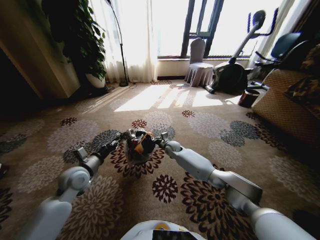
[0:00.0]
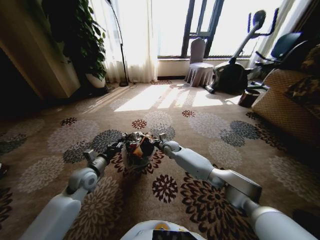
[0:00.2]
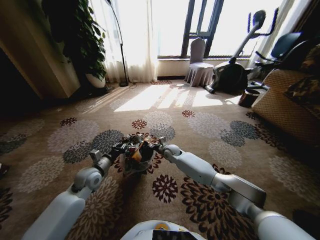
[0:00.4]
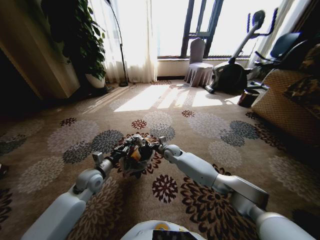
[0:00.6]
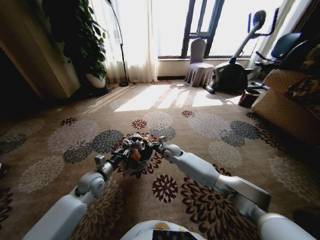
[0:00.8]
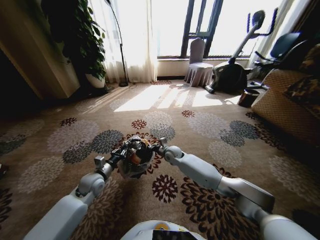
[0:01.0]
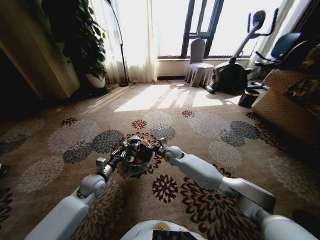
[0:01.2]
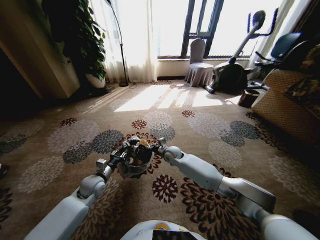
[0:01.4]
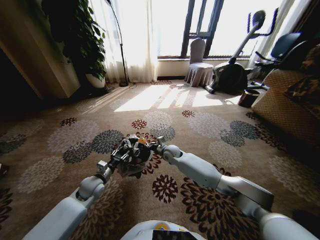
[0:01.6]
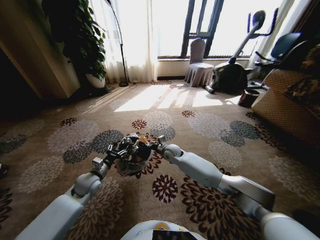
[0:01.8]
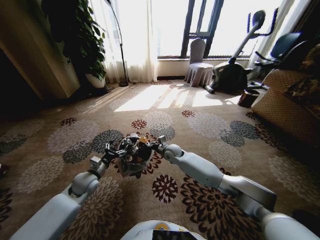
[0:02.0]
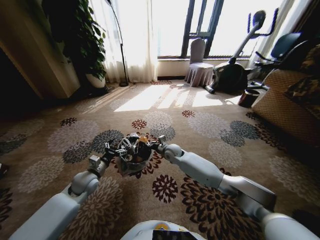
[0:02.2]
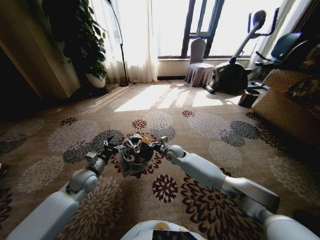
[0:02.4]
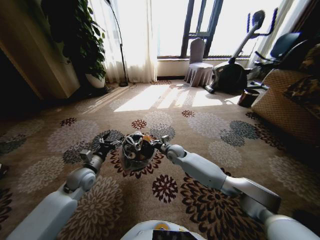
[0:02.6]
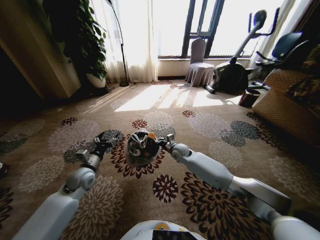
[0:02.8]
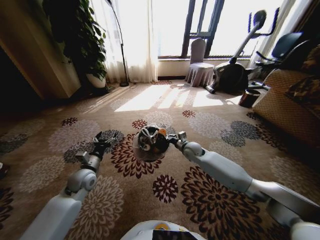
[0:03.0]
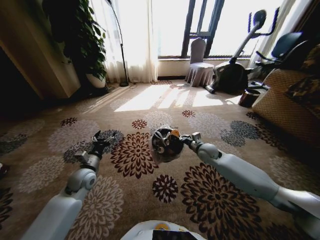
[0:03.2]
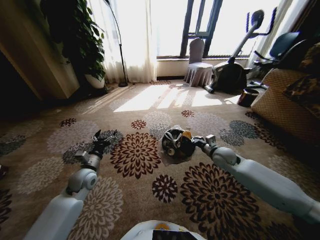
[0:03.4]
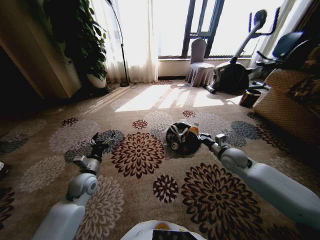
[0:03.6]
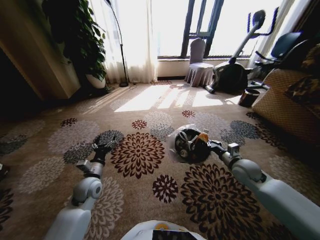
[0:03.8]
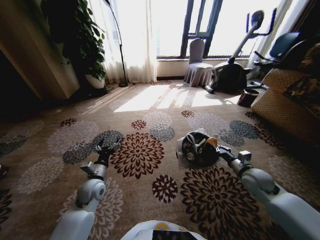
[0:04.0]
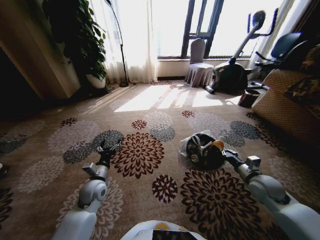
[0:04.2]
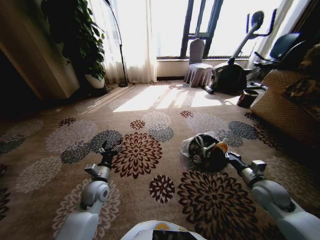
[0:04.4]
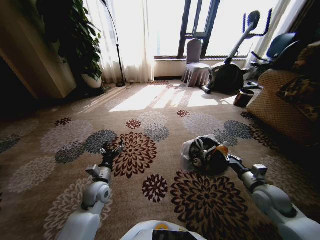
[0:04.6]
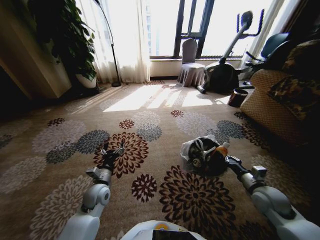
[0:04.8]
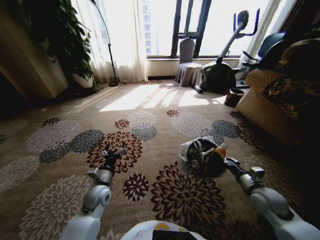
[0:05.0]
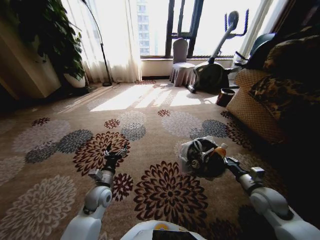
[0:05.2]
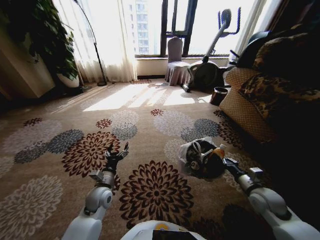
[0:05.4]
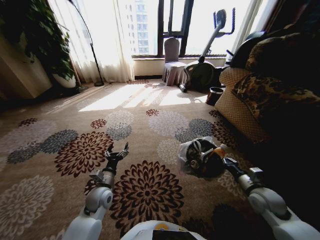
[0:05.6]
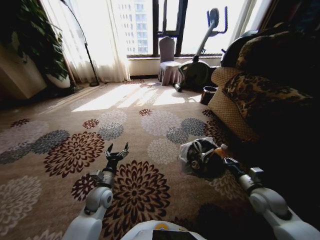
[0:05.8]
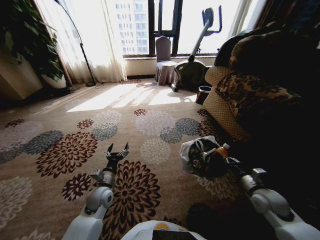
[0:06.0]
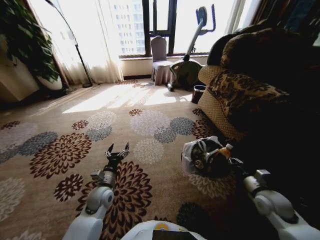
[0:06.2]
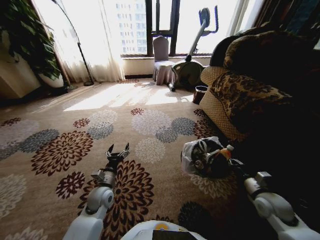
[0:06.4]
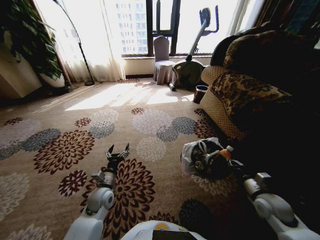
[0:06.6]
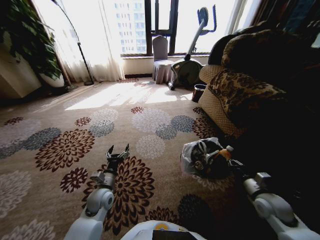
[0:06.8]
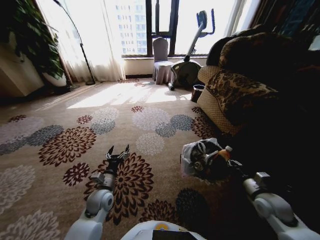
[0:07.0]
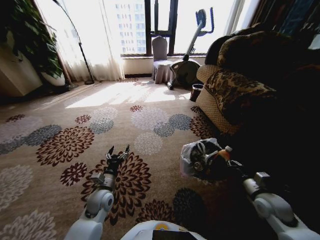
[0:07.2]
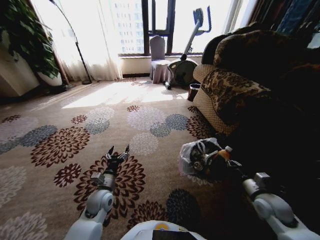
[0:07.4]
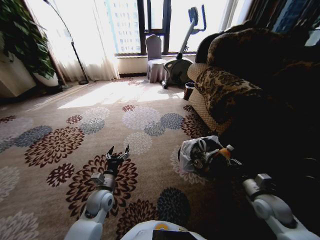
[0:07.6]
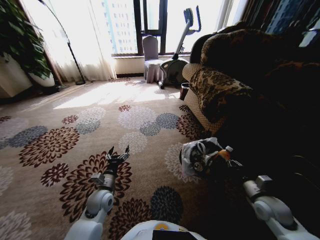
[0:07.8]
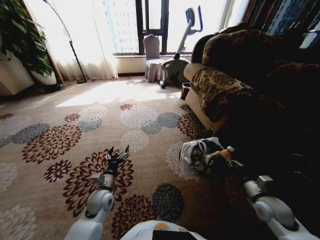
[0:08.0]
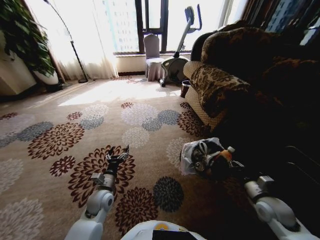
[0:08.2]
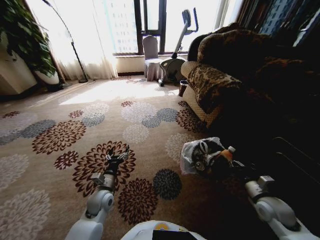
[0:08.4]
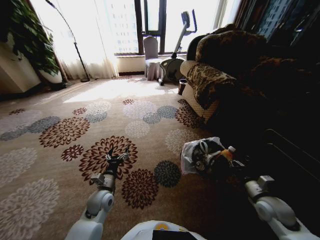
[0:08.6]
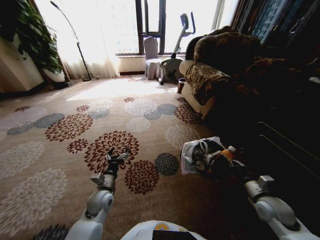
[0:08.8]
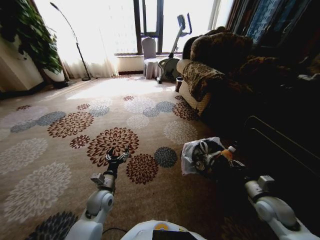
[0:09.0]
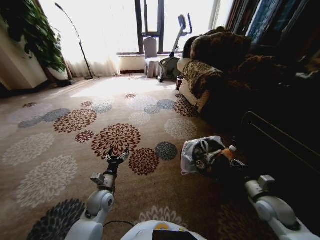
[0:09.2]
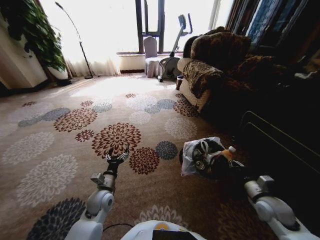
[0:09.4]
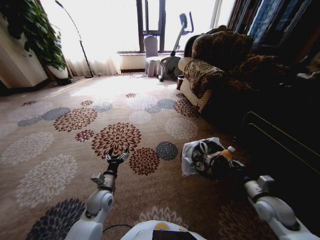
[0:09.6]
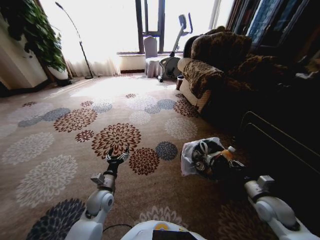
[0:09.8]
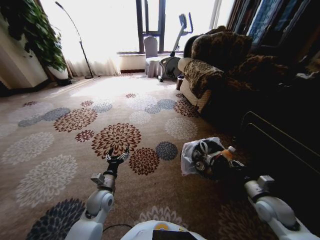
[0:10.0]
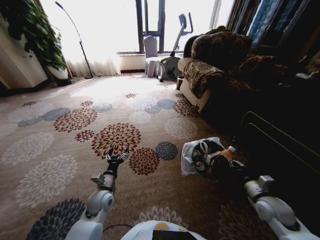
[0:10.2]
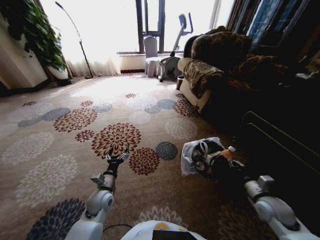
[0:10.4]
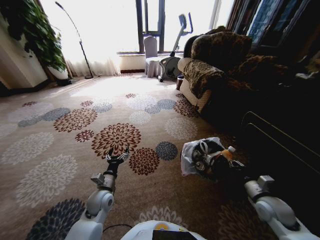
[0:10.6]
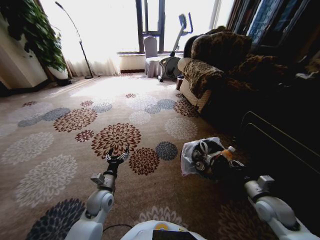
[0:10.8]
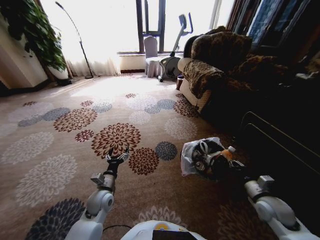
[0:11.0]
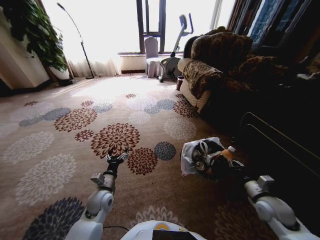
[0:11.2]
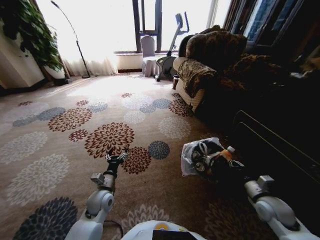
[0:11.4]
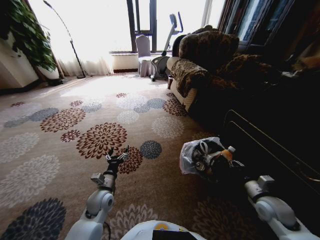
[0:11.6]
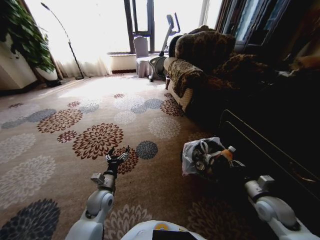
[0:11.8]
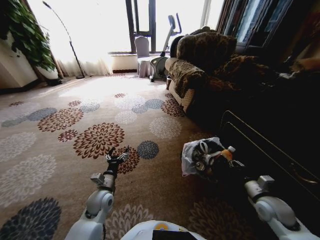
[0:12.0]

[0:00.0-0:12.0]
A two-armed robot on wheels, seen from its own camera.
Task of the whole recording: Pick up the trash from the ground and place it into the trash bin.
0:00.0 to 0:01.6: The right gripper travels backward by approximately 5 cm. Meanwhile the left gripper heads downward, covering roughly 10 cm.
0:01.6 to 0:03.0: The right gripper heads to the right, covering some 10 cm. The left gripper travels upward by roughly 5 cm, and opens.
0:03.0 to 0:04.4: The left gripper travels to the right by approximately 5 cm, while the right gripper heads to the right and backward, covering about 30 cm.
0:09.0 to 0:10.4: Neither gripper changes place.

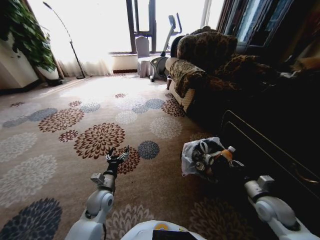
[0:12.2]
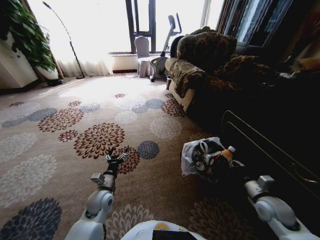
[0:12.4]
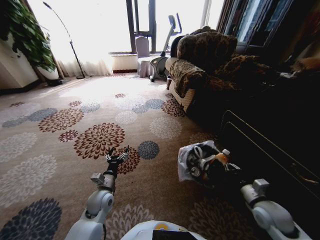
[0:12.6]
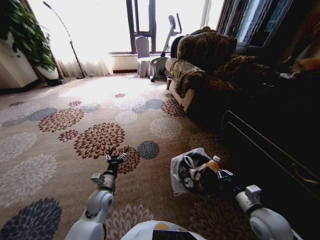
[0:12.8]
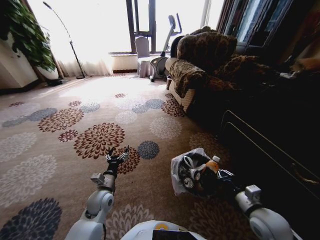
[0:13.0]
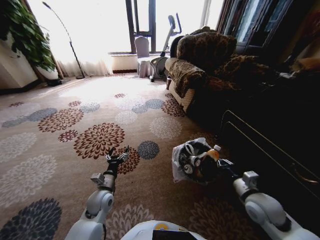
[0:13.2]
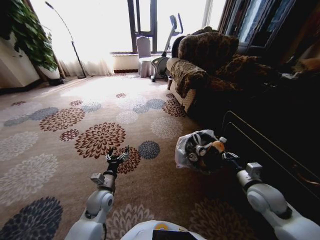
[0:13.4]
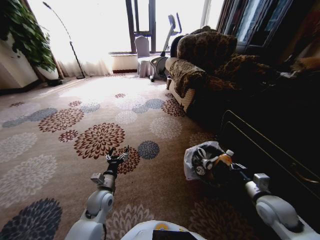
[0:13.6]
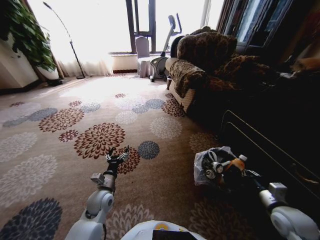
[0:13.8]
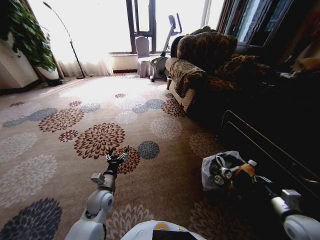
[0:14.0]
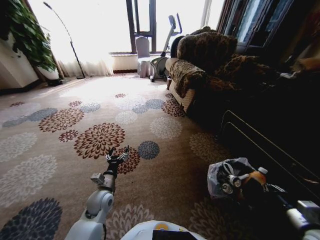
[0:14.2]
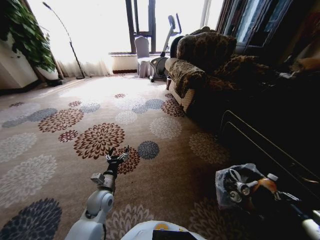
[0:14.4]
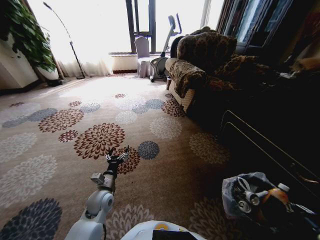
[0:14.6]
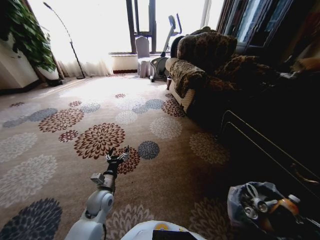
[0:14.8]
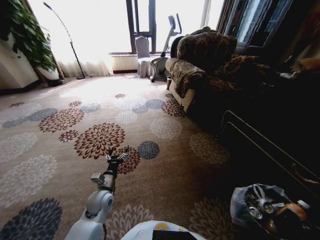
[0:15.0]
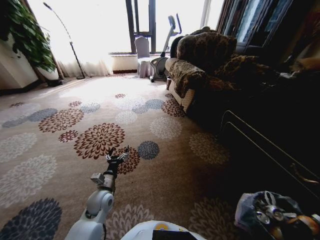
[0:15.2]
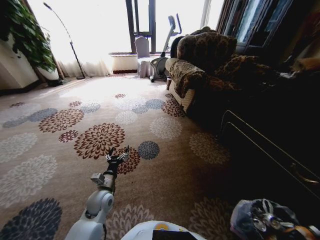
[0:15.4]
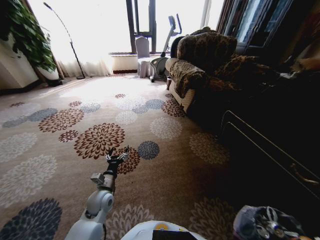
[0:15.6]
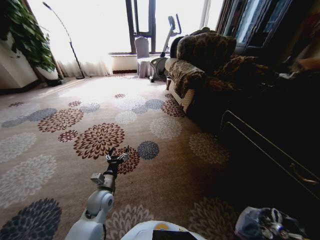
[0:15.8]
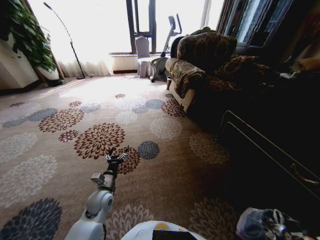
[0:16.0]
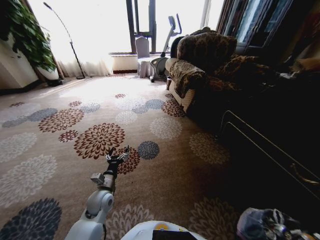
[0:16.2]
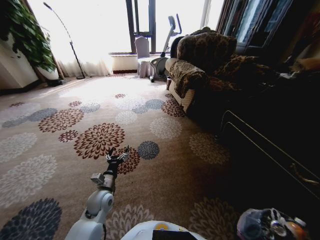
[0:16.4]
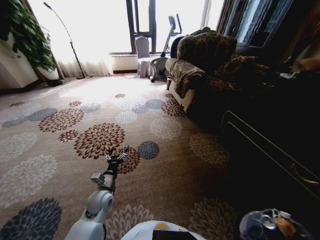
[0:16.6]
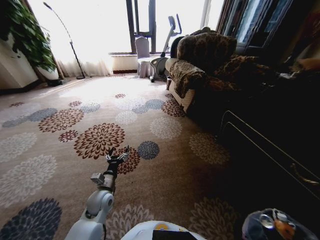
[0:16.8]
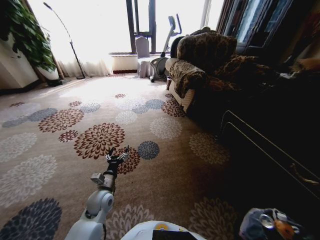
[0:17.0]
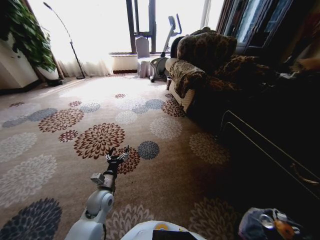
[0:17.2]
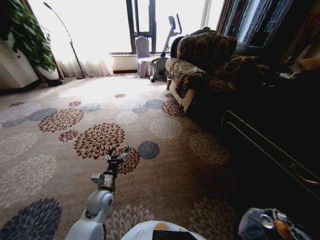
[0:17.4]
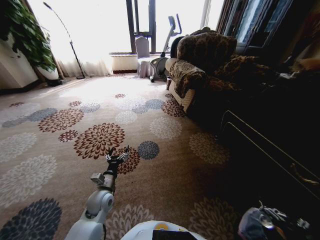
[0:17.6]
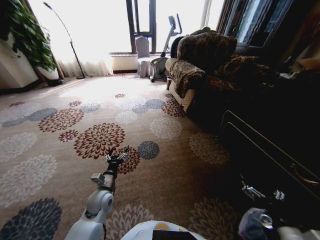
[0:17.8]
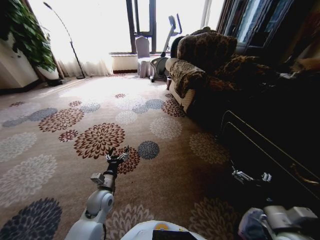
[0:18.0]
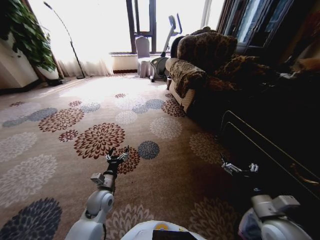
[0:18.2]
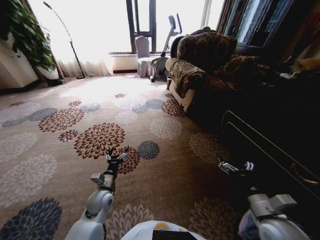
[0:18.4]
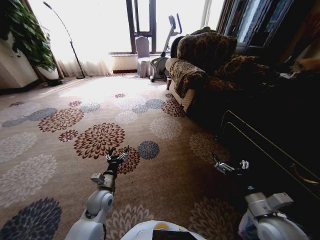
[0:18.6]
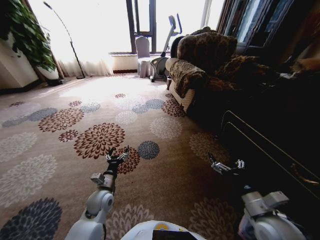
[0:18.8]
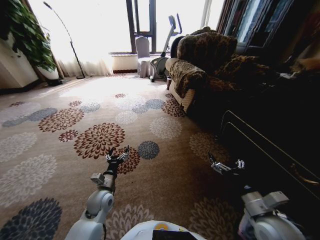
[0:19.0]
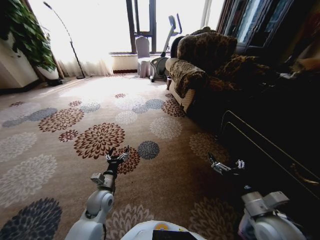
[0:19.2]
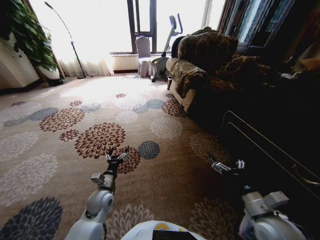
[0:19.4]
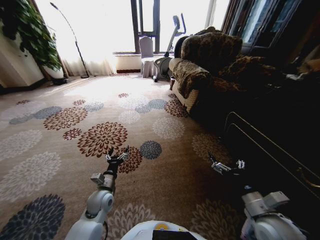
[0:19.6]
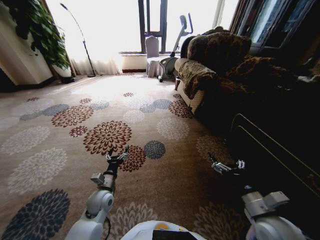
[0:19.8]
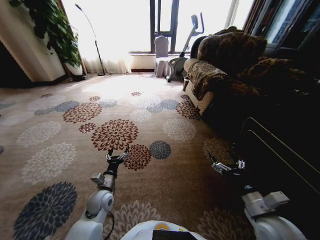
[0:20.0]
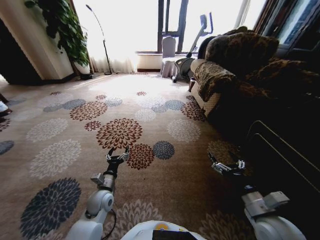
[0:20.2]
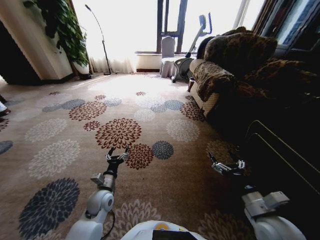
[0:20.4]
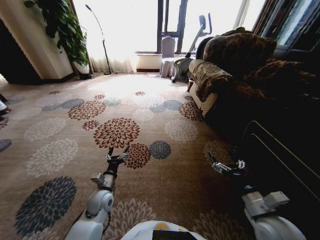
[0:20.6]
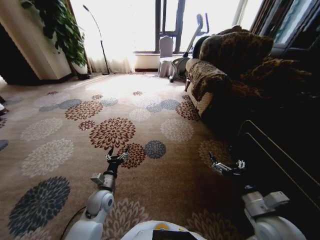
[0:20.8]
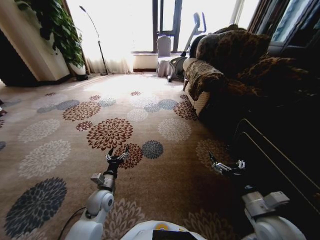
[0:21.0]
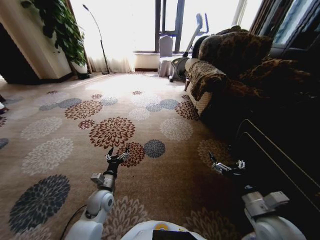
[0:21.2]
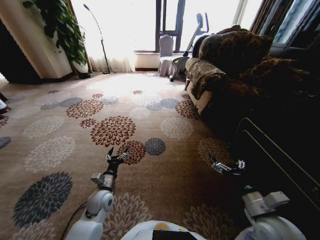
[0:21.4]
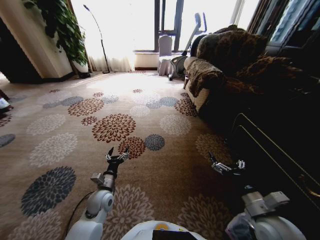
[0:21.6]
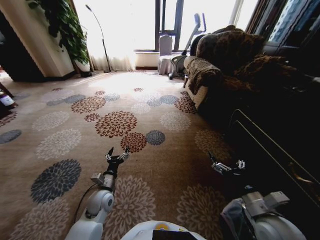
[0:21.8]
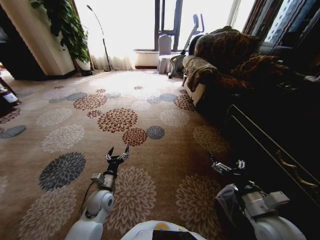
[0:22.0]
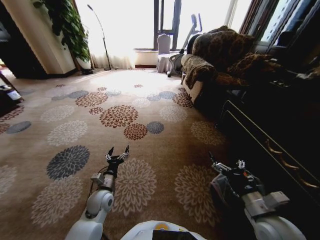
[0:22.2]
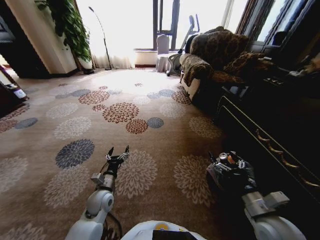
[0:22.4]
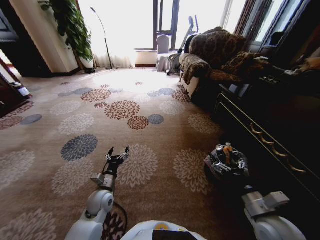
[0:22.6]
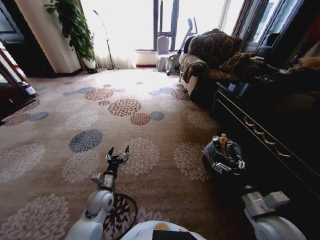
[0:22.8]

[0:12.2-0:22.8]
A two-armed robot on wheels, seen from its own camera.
Task of the whole recording: Pick up the trash from the ground and place it into the trash bin.
0:12.2 to 0:13.8: The right gripper goes to the left and returns, roughly 5 cm each way.
0:13.8 to 0:15.2: The right gripper is displaced backward and to the right by some 20 cm.
0:15.2 to 0:16.8: The right gripper is displaced to the left by about 10 cm, and opens up.
0:16.8 to 0:18.2: The right gripper is displaced forward, to the left and upward by approximately 20 cm.
